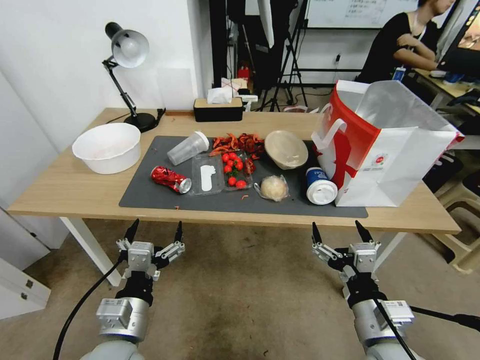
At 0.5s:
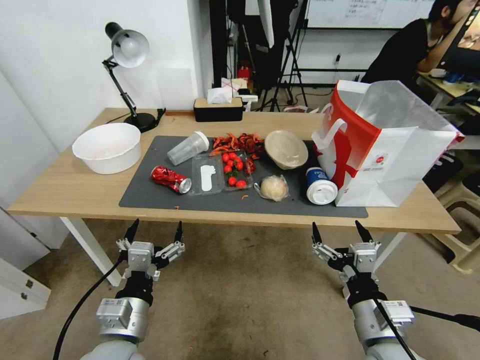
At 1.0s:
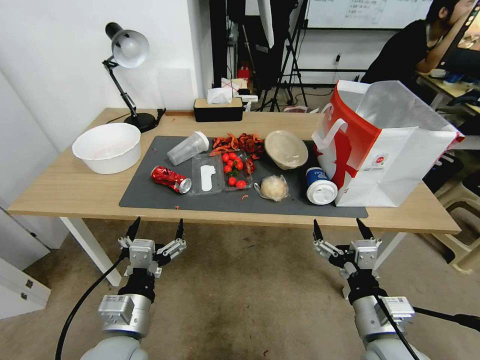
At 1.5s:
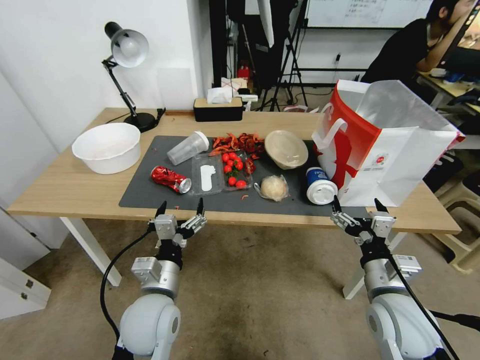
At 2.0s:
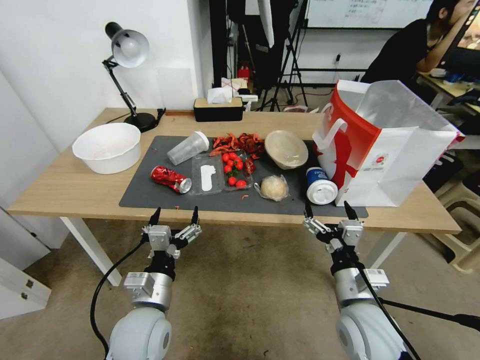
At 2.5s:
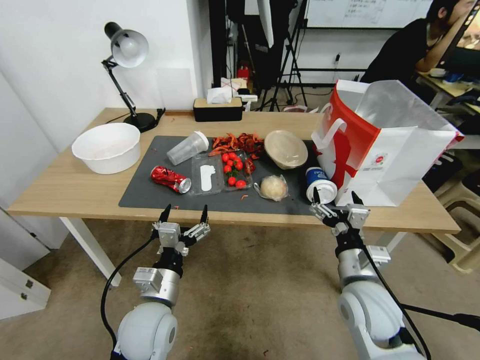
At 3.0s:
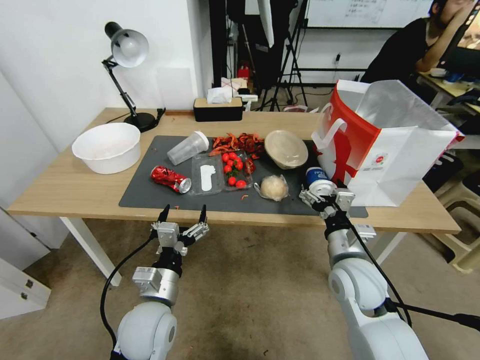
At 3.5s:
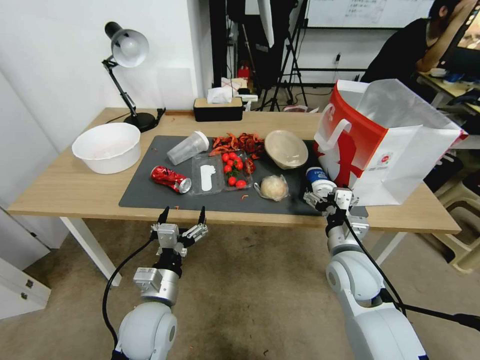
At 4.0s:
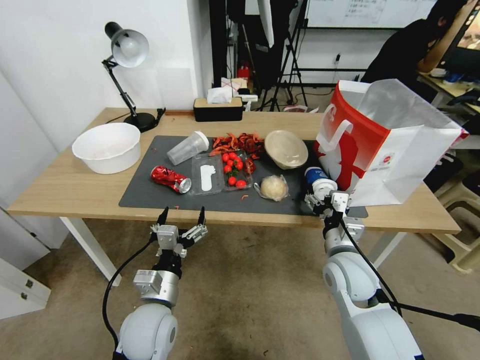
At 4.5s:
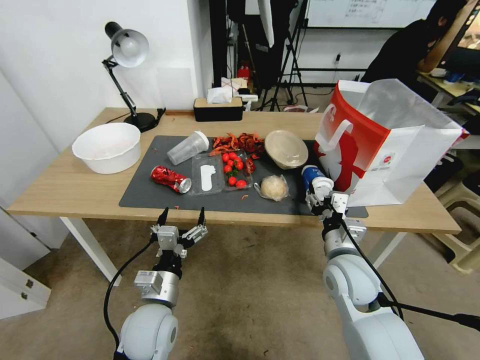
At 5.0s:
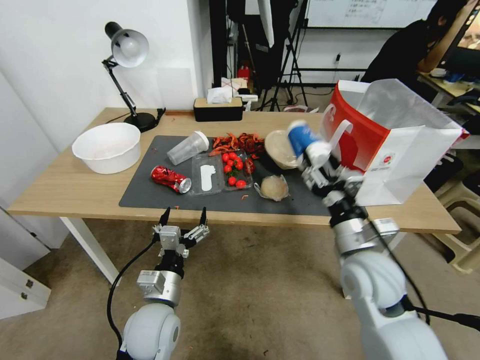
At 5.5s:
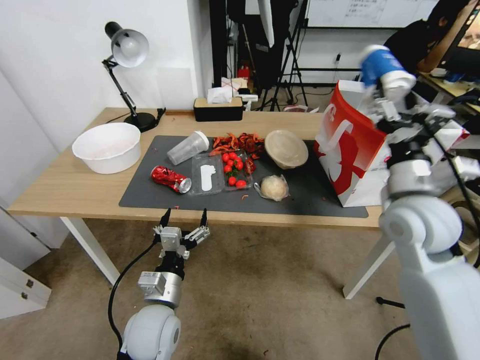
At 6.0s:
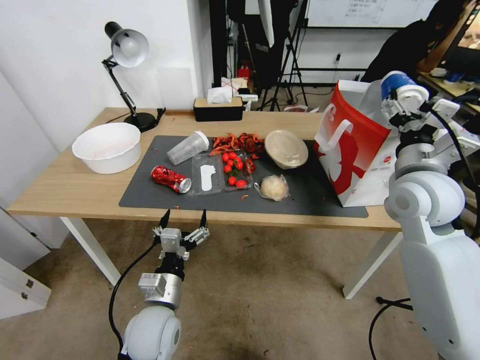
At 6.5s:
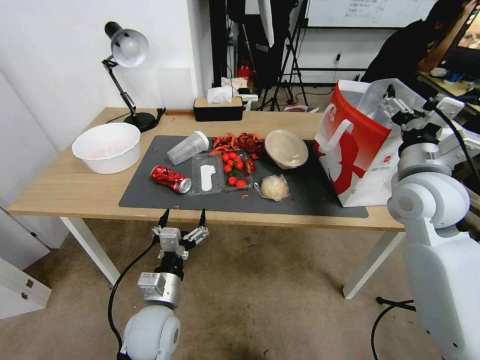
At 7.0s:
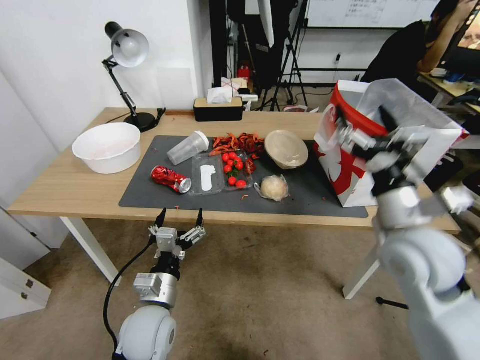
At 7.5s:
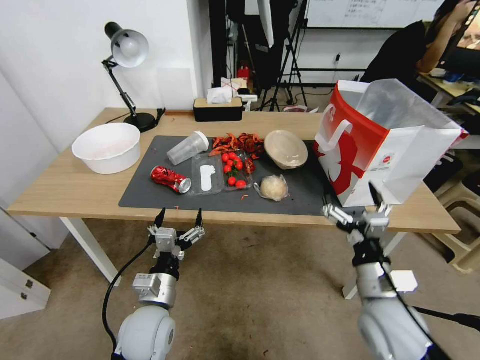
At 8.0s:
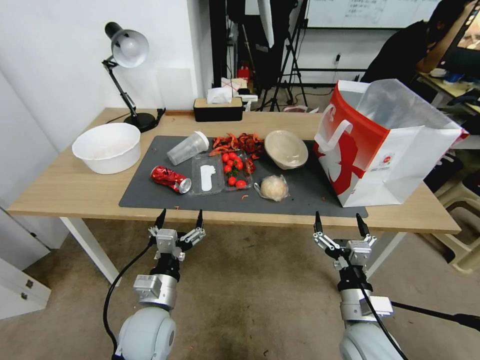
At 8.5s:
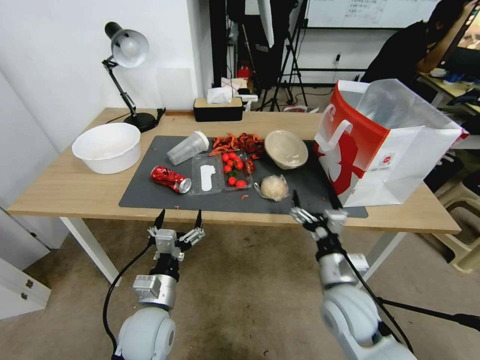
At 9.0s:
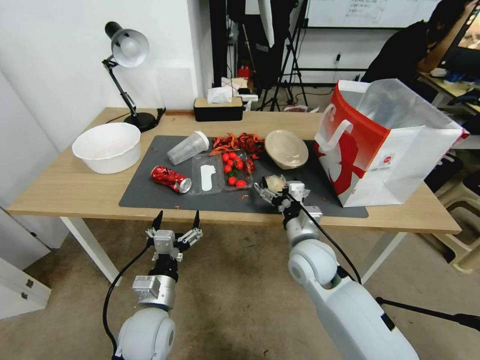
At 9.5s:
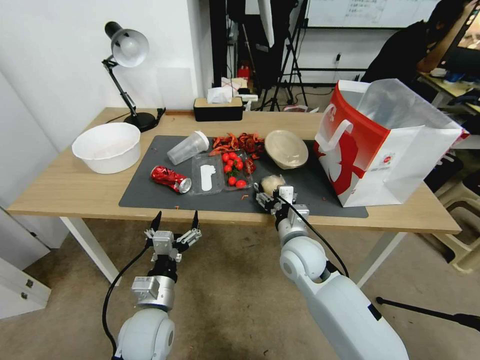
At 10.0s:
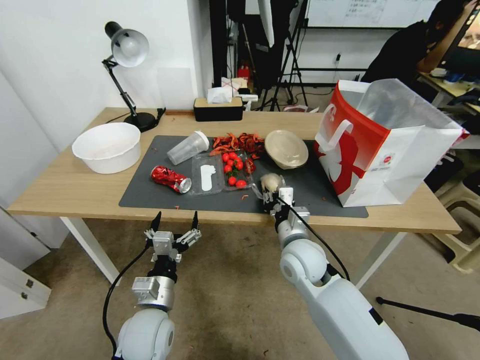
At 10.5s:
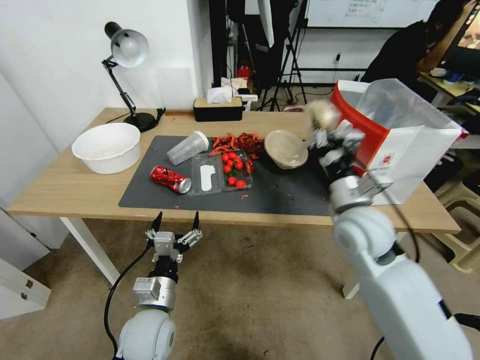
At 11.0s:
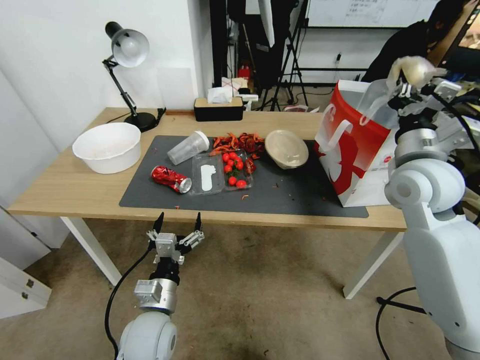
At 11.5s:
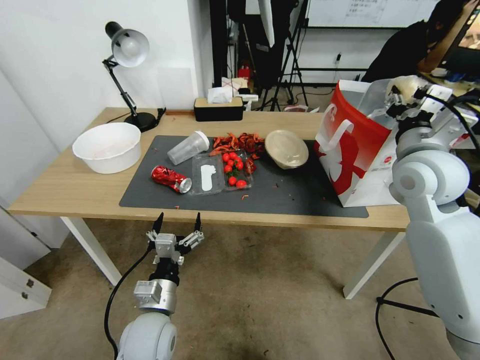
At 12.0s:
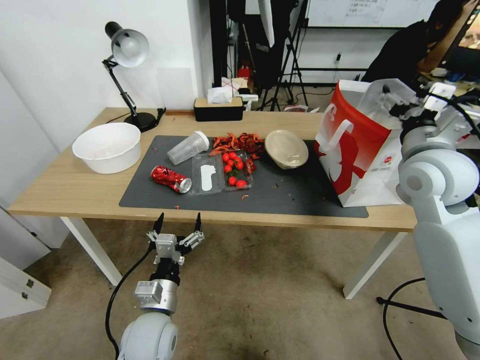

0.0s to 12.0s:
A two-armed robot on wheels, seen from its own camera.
2.0s to 4.0s: The right gripper heads forward, covering approximately 10 cm.
4.0s to 6.0s: The right gripper goes some 20 cm upward and to the right.
6.0s to 8.0s: The right gripper moves downward and backward, approximately 30 cm.
8.0s to 10.0s: The right gripper is displaced forward and to the left by roughly 20 cm, and closes.
10.0s to 12.0s: The right gripper heads upward and to the right, covering about 30 cm, and opens.

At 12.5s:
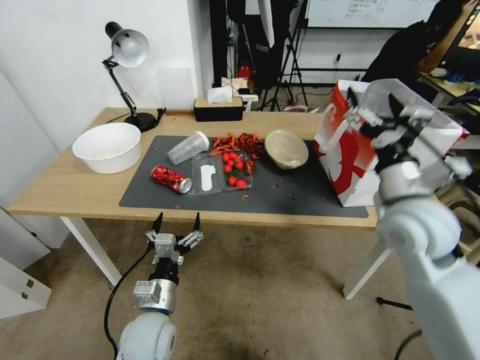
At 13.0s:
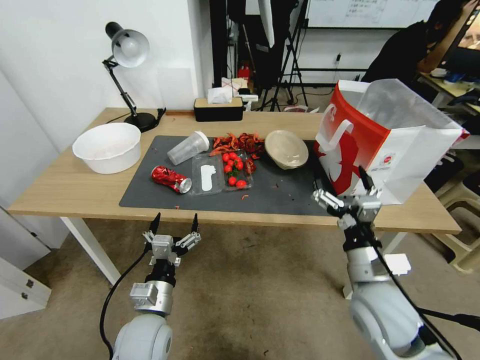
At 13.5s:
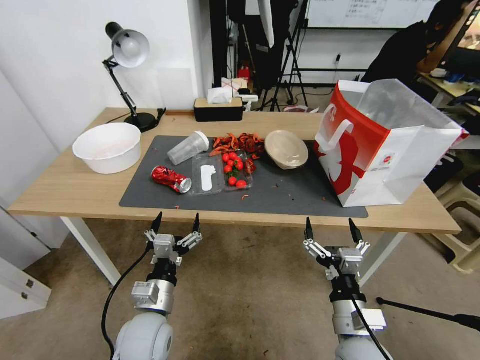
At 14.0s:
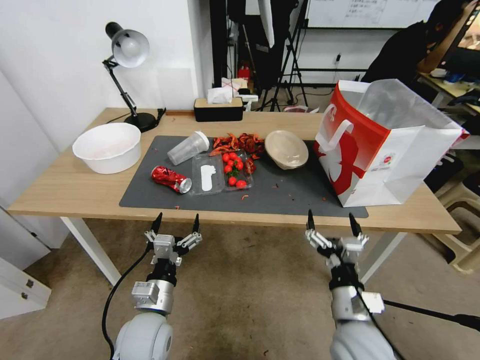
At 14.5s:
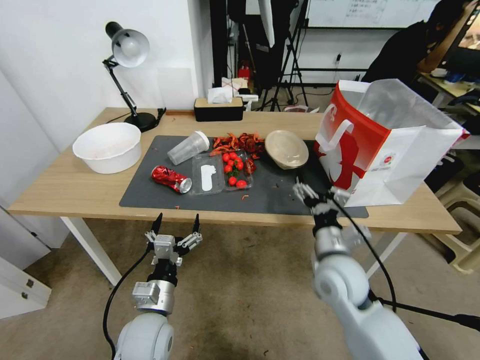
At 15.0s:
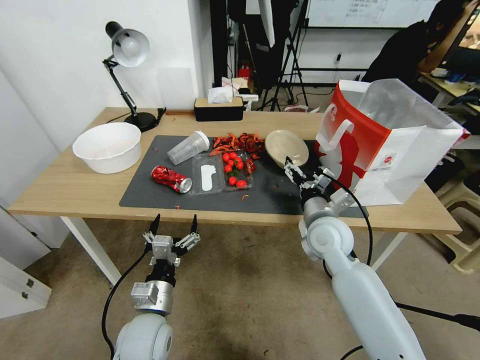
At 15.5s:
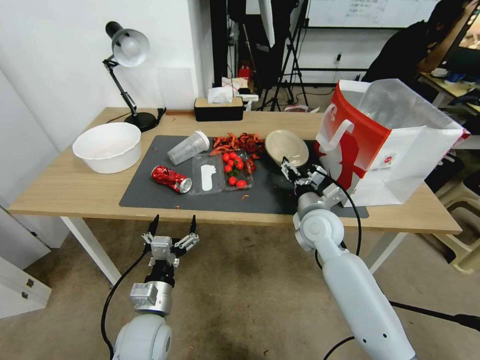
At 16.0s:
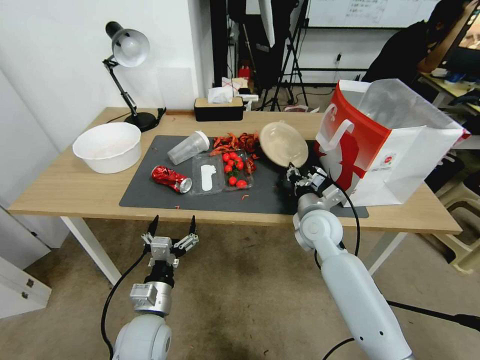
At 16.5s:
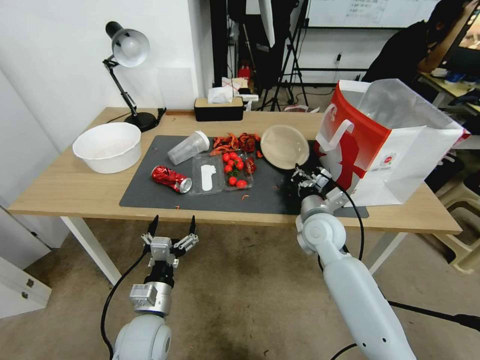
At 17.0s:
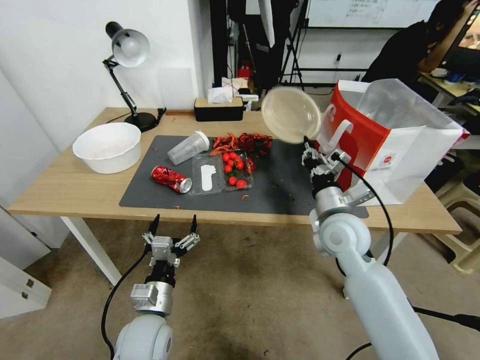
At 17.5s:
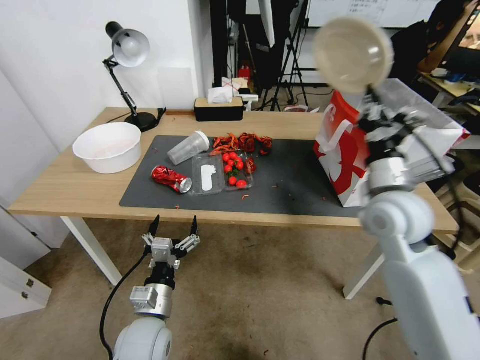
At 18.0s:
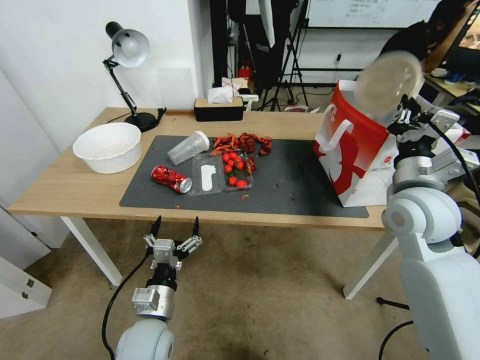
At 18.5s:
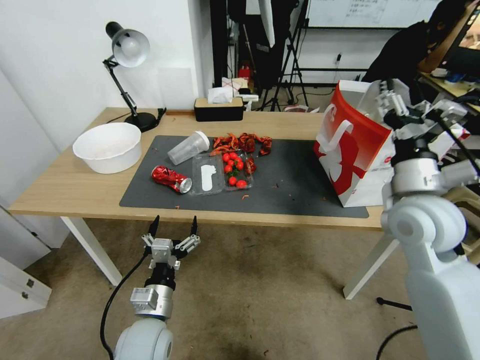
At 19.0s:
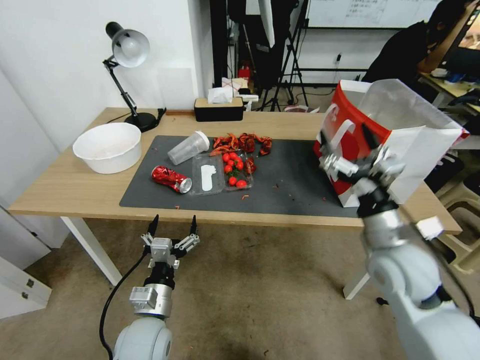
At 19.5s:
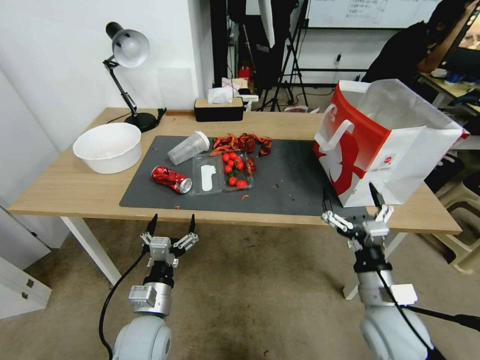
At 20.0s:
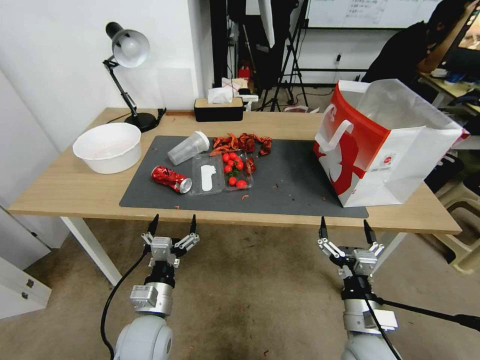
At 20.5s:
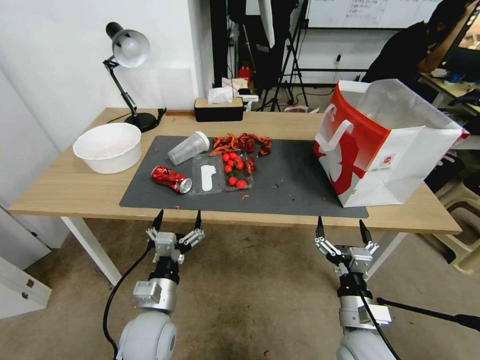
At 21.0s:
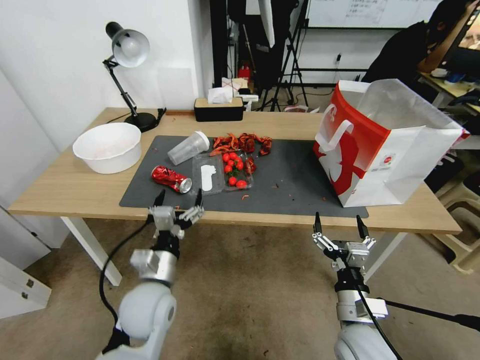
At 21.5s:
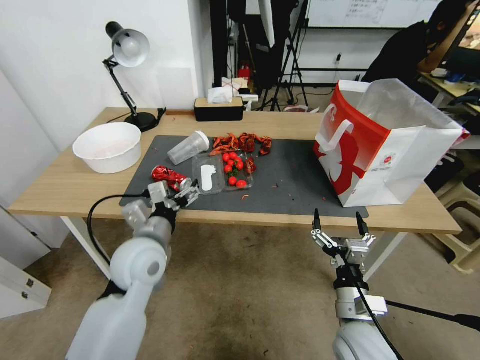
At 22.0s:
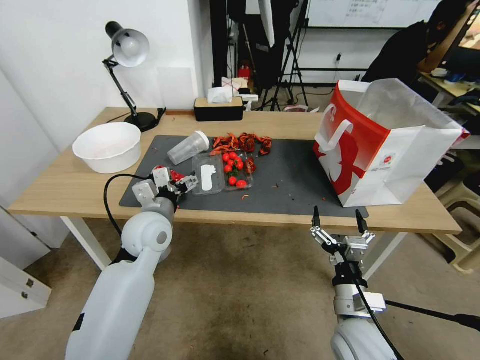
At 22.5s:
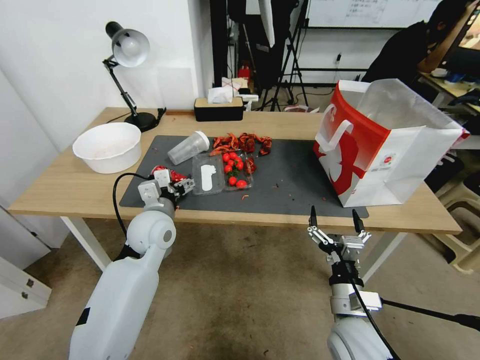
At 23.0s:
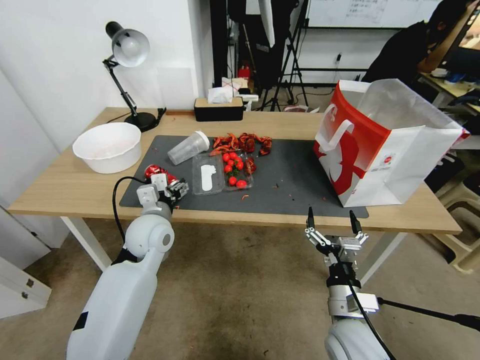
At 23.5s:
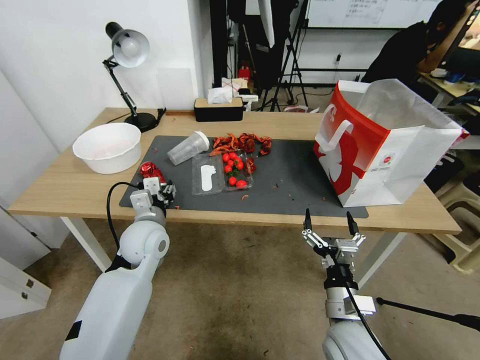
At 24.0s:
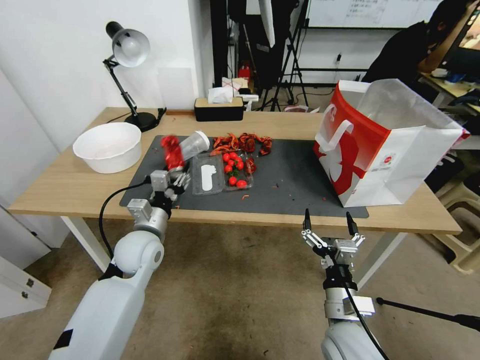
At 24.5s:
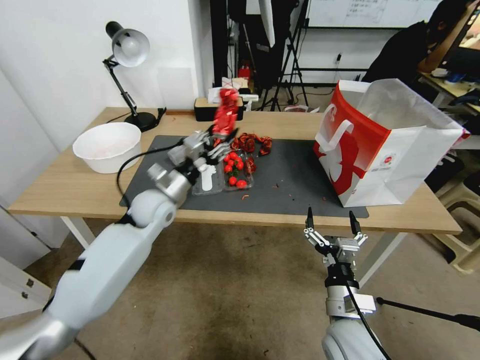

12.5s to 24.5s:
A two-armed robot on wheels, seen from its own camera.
12.5s to 14.5s: The right gripper is displaced downward, to the left and backward by about 25 cm.
14.5s to 16.5s: The right gripper is displaced forward by about 15 cm, and closes.
16.5s to 18.5s: The right gripper shifts some 20 cm upward, to the right and backward, and opens up.
18.5s to 20.5s: The right gripper moves downward and backward, approximately 30 cm.
20.5s to 22.5s: The left gripper goes roughly 20 cm forward and upward.
22.5s to 24.5s: The left gripper heads forward, covering about 5 cm, and closes up.

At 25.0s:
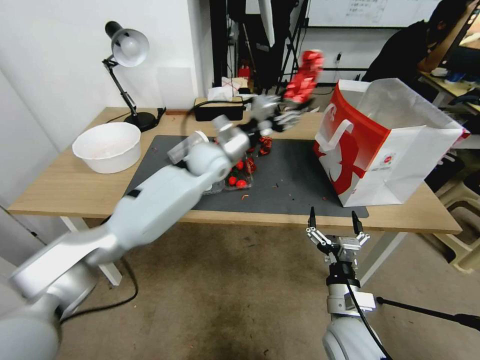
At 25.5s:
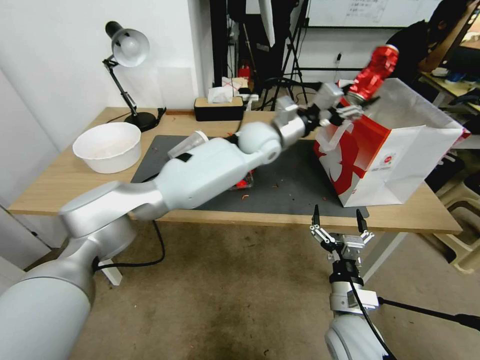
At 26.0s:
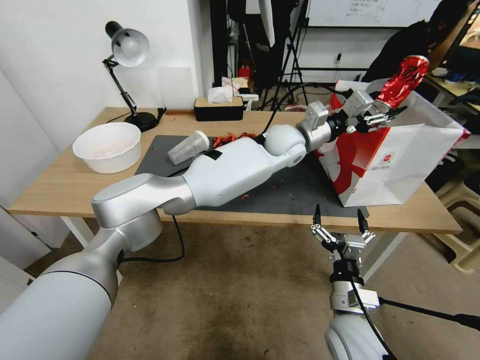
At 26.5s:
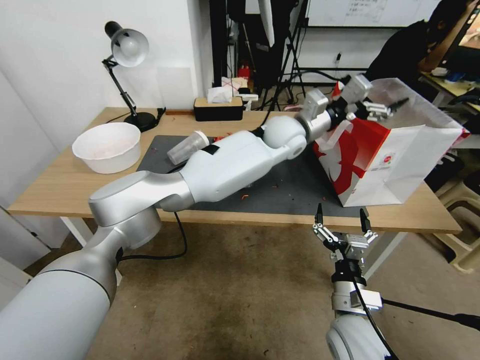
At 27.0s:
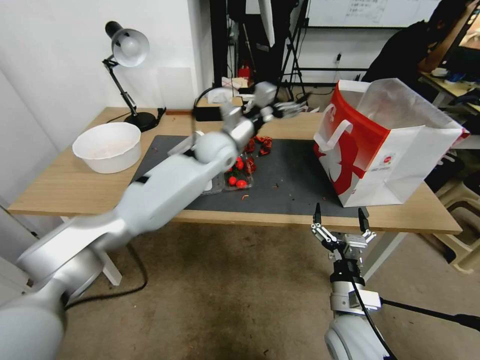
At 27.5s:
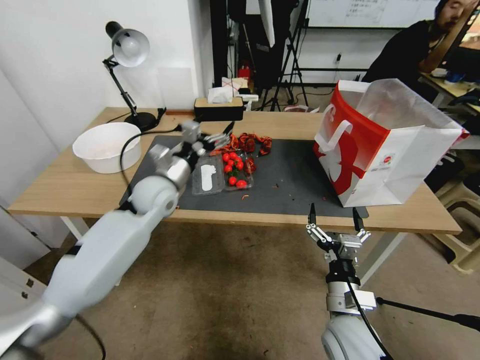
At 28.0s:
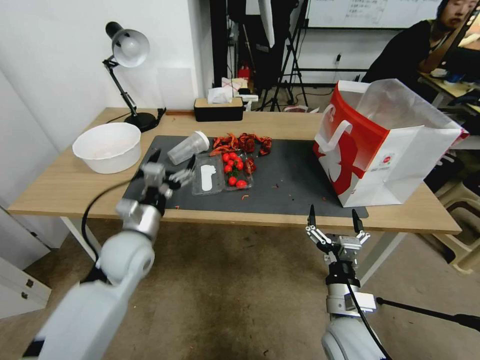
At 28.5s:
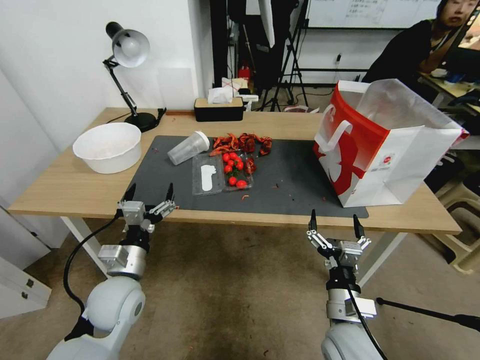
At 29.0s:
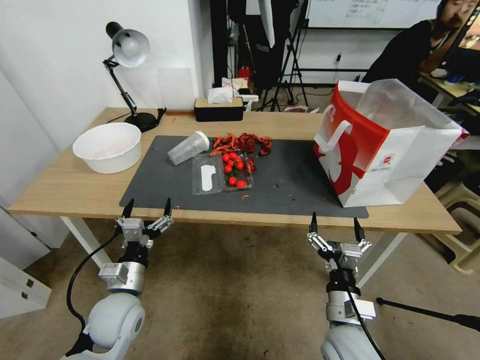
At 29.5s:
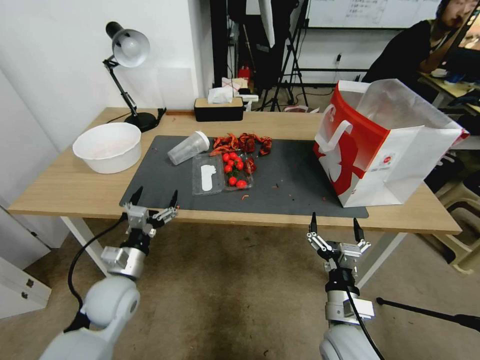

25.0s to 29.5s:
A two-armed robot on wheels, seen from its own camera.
25.0s to 27.0s: The left gripper goes to the right and returns, approximately 20 cm each way, and opens its fingers.
27.0s to 29.5s: The left gripper travels backward, to the left and downward by about 40 cm.
